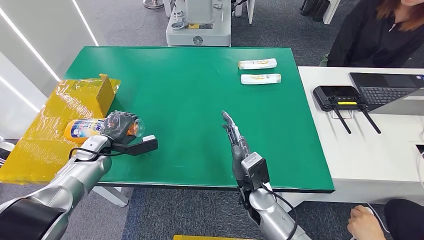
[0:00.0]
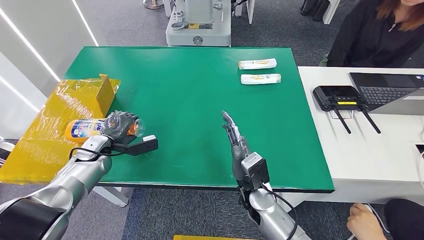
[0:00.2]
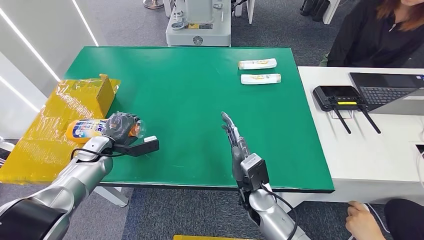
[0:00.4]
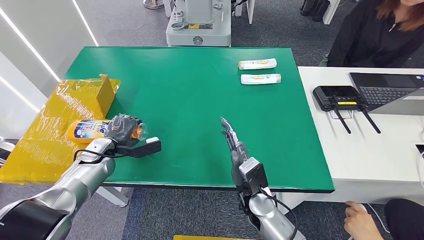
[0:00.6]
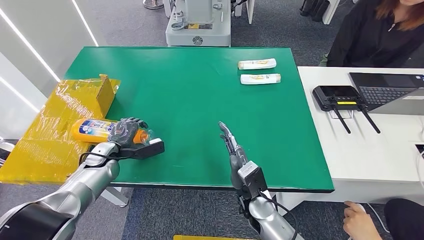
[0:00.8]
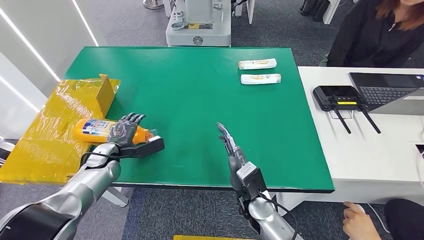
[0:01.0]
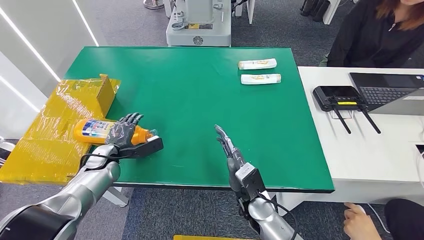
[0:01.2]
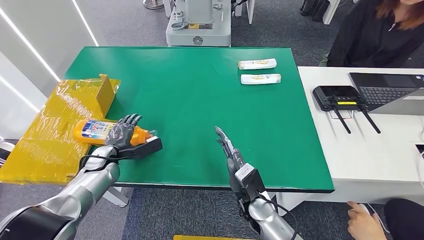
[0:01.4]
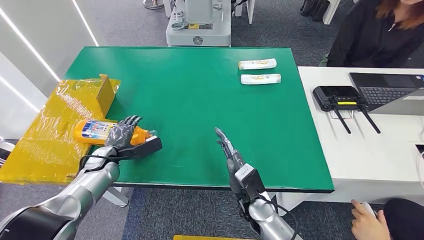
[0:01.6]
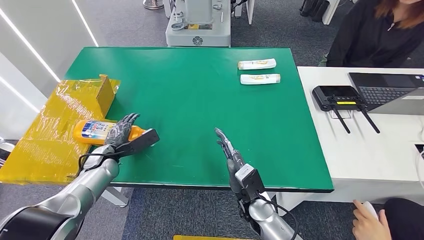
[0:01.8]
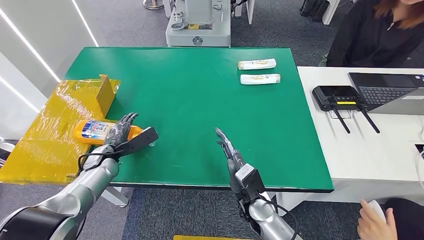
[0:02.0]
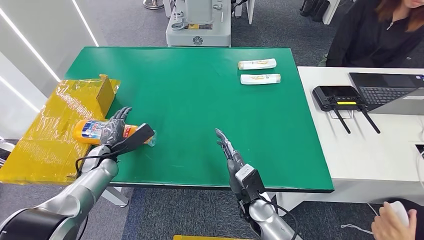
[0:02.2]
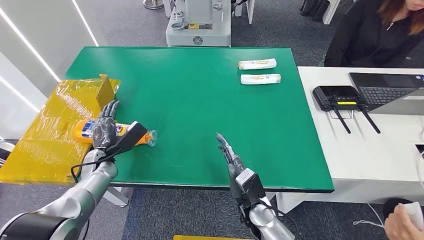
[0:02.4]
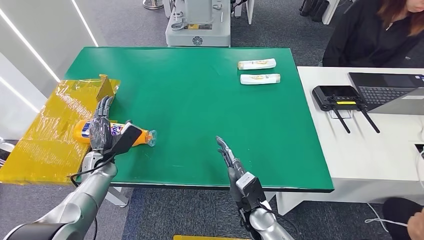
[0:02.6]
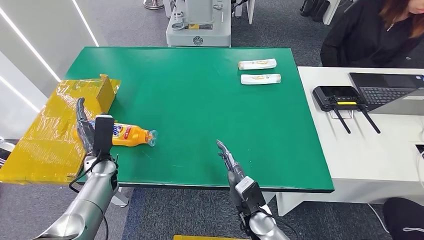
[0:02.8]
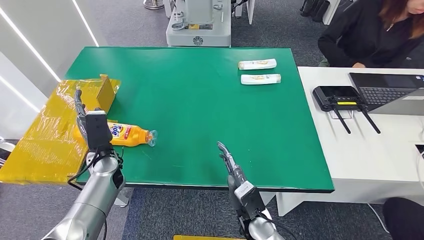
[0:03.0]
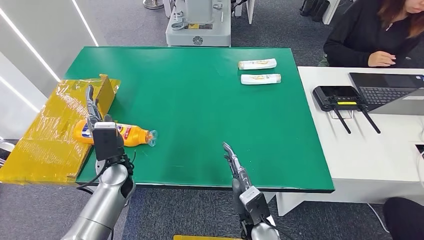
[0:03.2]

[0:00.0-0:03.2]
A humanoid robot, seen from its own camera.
Step, 0:00.0 to 0:03.2: Turn the bottle to the front side.
0:00.0 to 0:01.6: The hands stay close to where they were, moving slightly.
0:01.6 to 0:03.2: The right hand is displaced backward by some 5 cm, while the left hand heads to the right and upward, covering some 10 cm.
